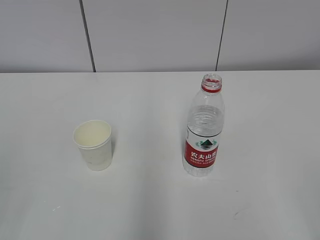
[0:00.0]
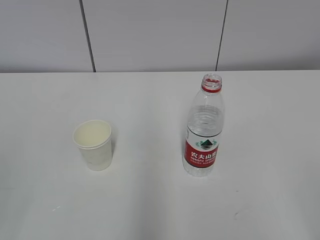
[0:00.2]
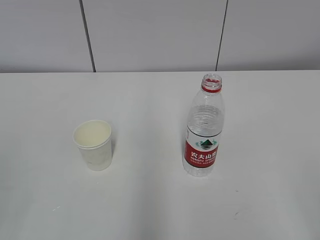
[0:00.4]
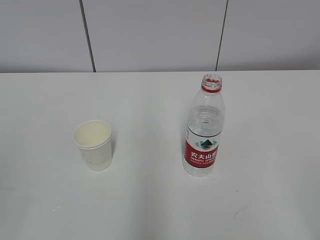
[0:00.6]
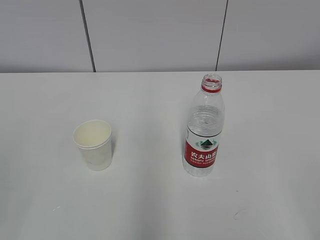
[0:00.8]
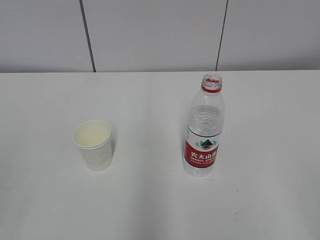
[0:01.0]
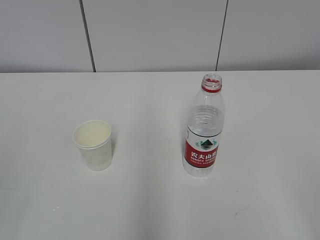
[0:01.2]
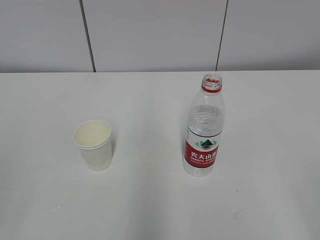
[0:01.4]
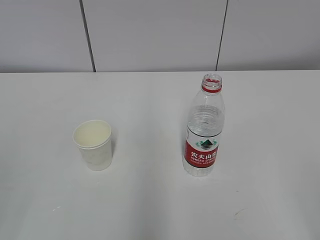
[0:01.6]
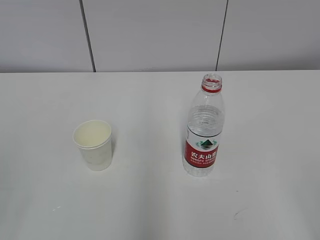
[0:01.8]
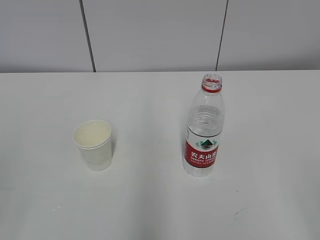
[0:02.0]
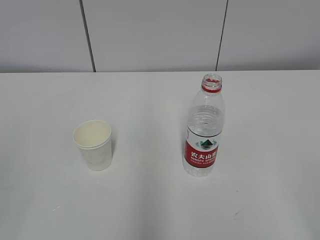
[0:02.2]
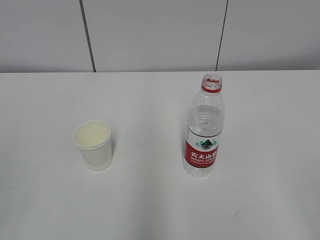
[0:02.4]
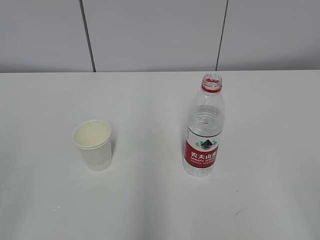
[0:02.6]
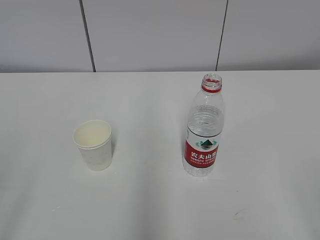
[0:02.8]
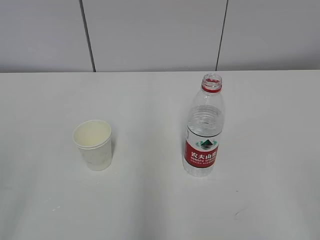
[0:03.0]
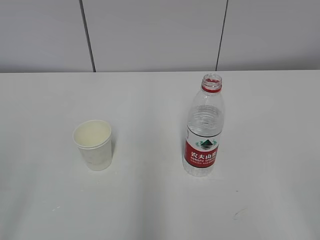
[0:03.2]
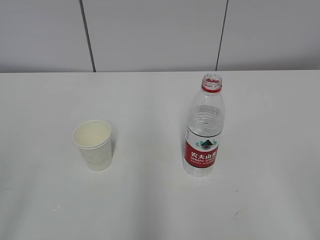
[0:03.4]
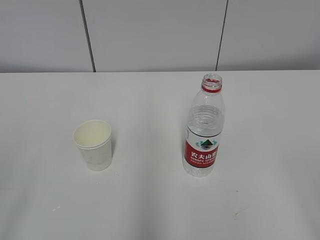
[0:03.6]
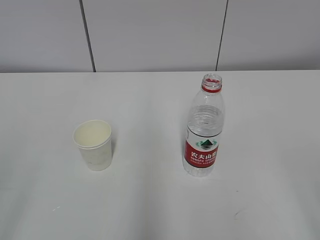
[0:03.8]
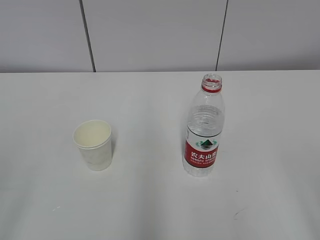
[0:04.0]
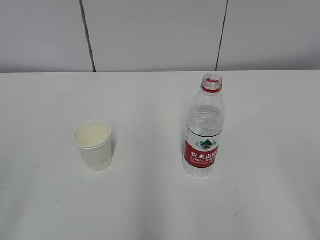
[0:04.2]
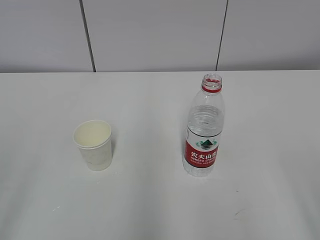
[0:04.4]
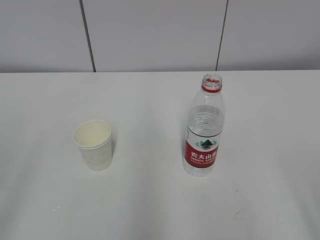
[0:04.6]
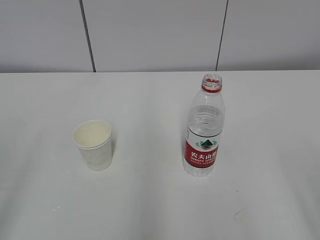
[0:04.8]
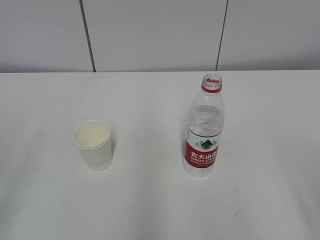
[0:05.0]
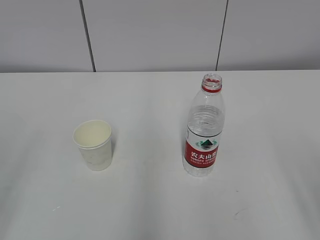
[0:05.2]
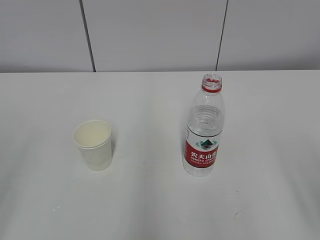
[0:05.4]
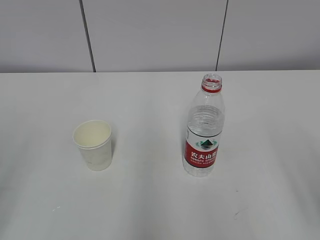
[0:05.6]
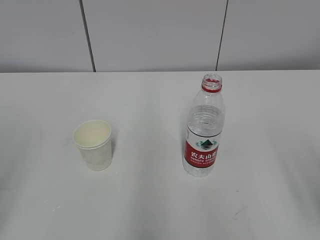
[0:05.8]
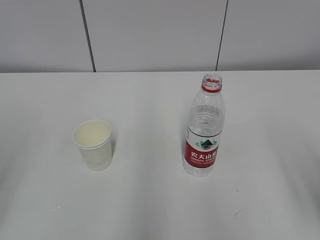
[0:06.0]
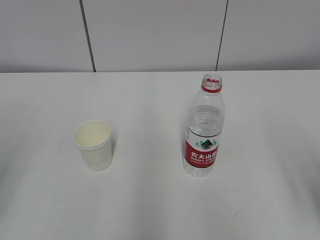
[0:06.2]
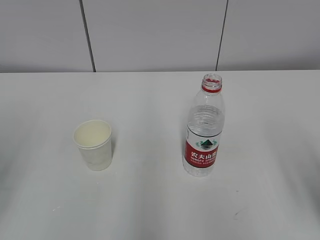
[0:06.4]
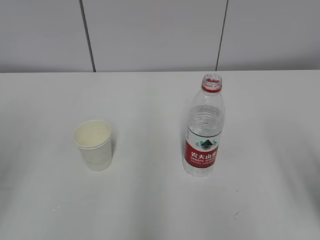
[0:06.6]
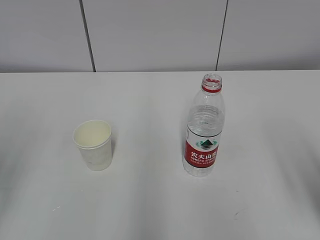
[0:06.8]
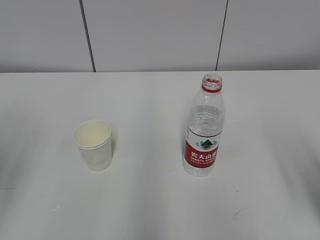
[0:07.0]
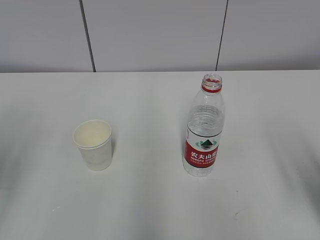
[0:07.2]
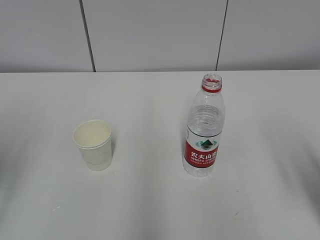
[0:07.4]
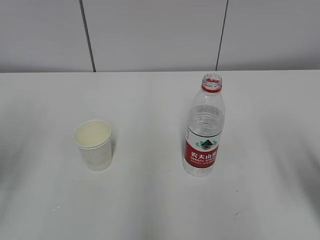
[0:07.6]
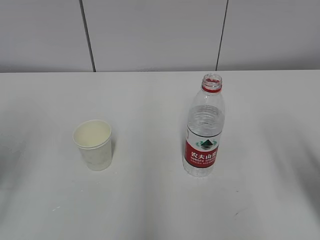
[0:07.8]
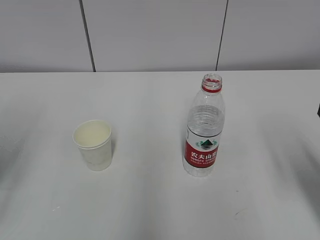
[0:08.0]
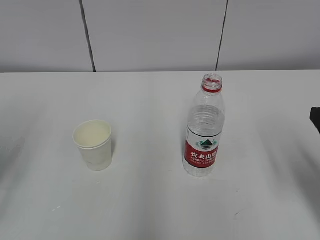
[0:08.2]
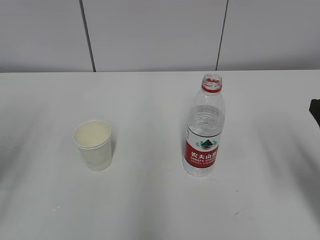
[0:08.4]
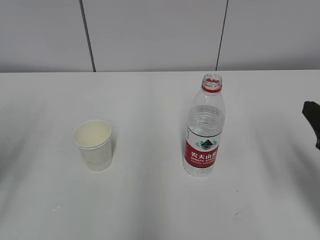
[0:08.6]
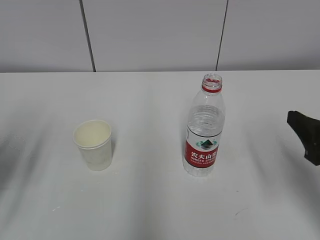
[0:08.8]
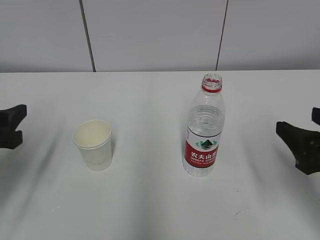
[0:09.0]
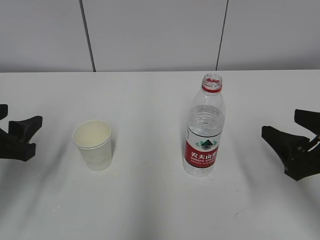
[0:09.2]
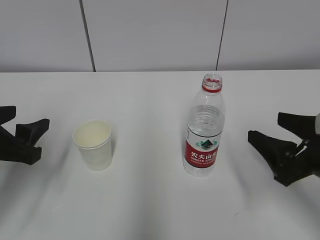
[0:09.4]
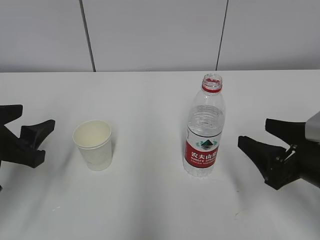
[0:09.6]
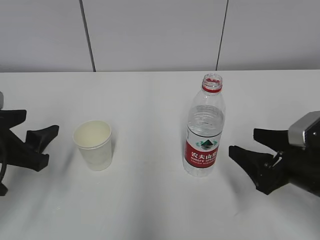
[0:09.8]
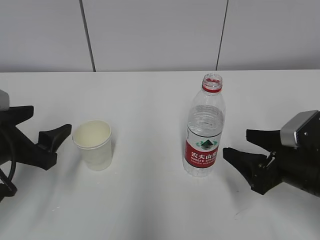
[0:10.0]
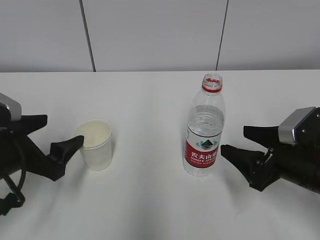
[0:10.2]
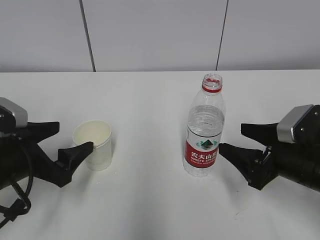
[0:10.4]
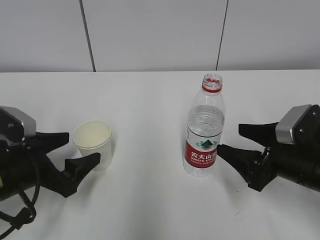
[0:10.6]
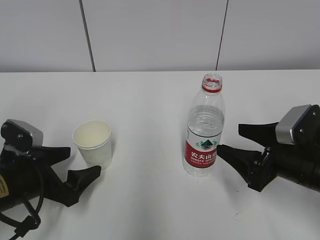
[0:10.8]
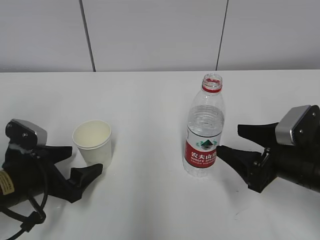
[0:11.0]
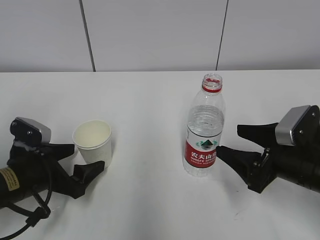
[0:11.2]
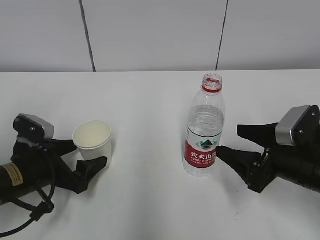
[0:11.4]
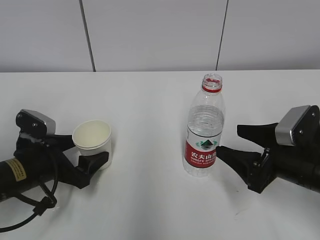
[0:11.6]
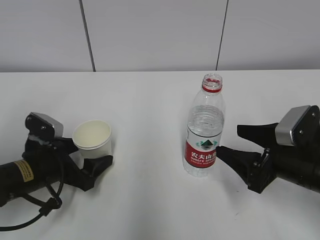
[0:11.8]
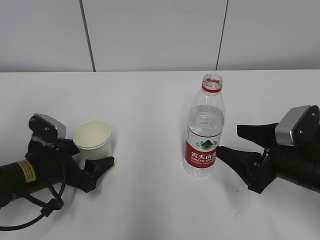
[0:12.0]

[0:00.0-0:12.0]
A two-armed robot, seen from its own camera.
Step, 0:00.0 to 0:12.0: Grab the paper cup with the left hand.
0:07.6 to 0:09.0: The left gripper shifts about 5 cm downward; the right gripper changes place by about 5 cm.
0:09.0 to 0:10.4: The right gripper heads downward and forward, covering about 10 cm, while the left gripper moves downward, some 5 cm, and opens up.
0:10.4 to 0:12.0: The left gripper moves downward, about 5 cm.

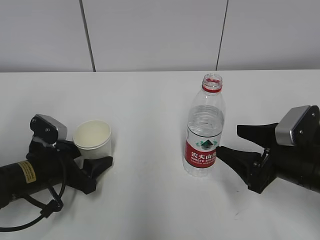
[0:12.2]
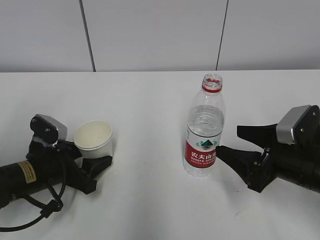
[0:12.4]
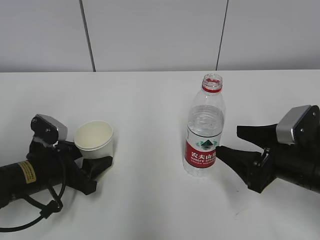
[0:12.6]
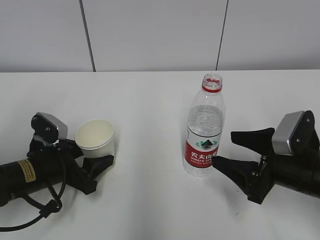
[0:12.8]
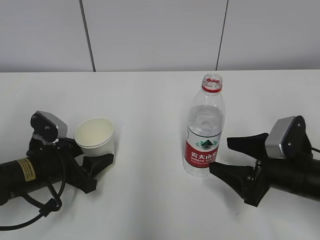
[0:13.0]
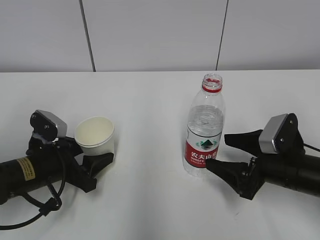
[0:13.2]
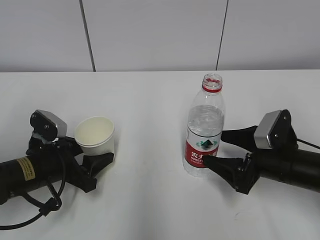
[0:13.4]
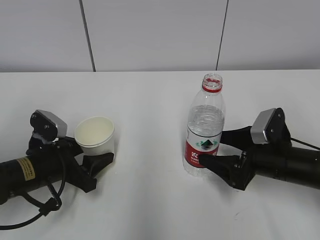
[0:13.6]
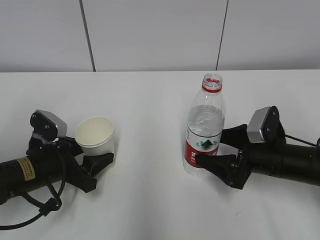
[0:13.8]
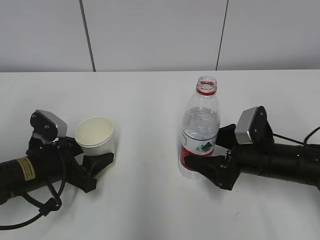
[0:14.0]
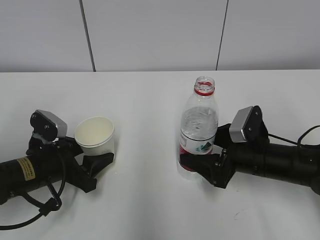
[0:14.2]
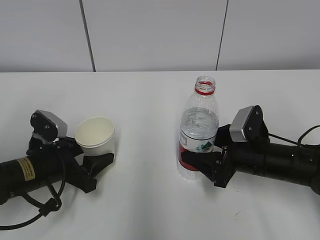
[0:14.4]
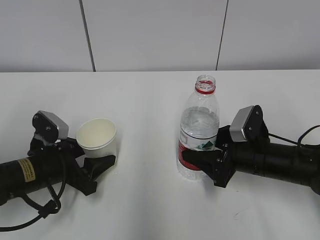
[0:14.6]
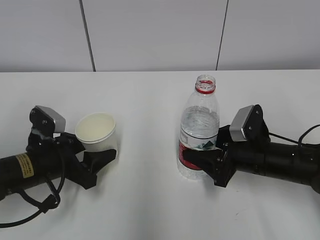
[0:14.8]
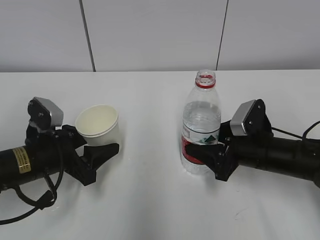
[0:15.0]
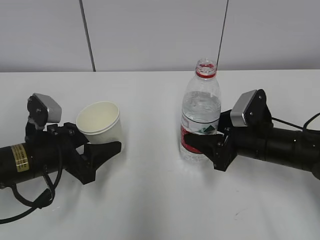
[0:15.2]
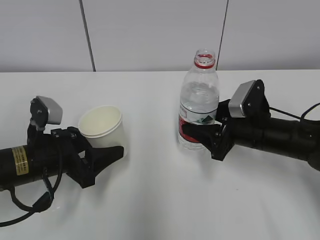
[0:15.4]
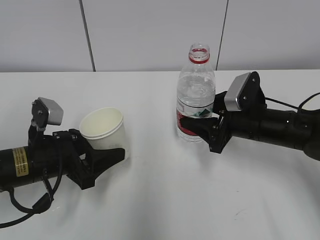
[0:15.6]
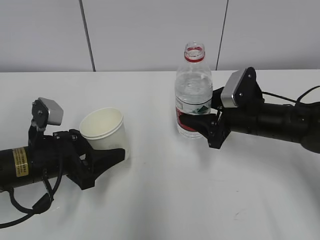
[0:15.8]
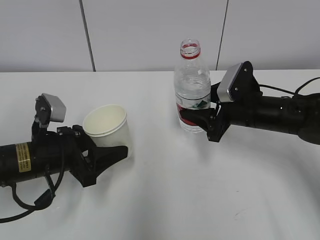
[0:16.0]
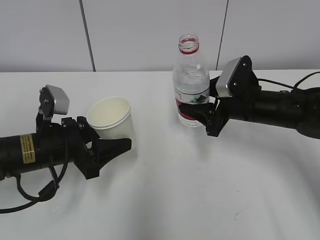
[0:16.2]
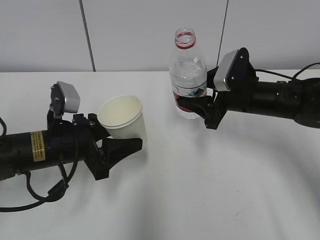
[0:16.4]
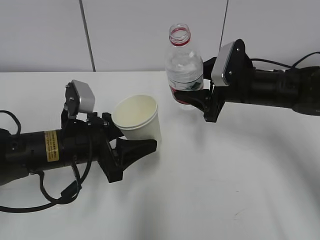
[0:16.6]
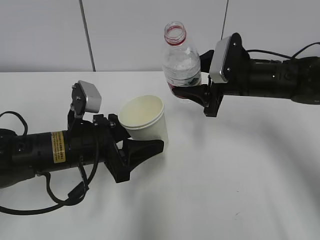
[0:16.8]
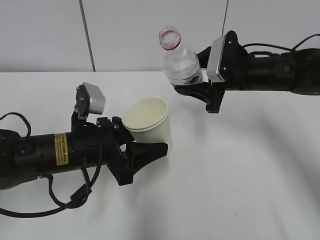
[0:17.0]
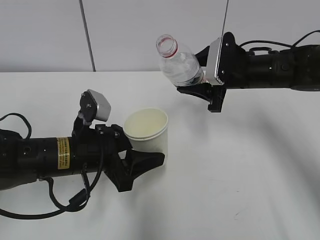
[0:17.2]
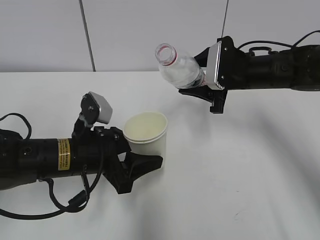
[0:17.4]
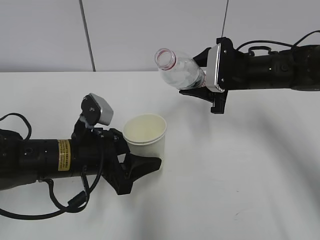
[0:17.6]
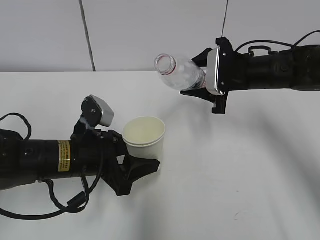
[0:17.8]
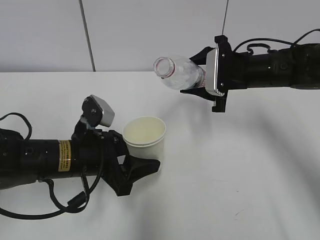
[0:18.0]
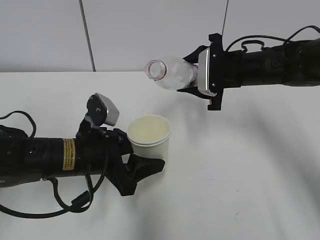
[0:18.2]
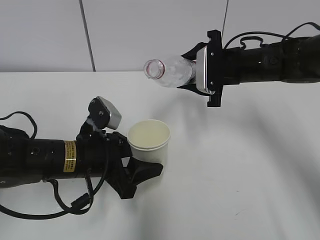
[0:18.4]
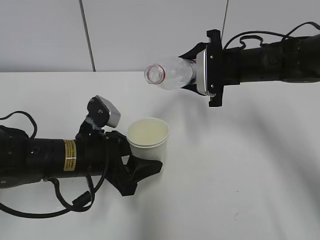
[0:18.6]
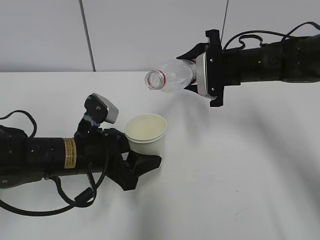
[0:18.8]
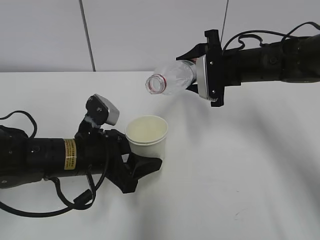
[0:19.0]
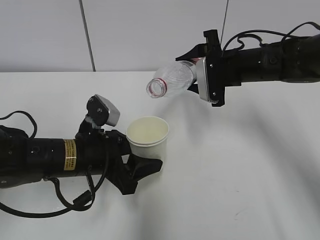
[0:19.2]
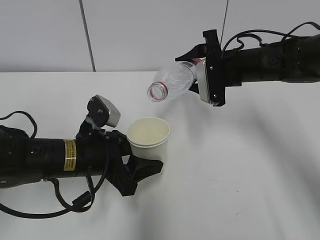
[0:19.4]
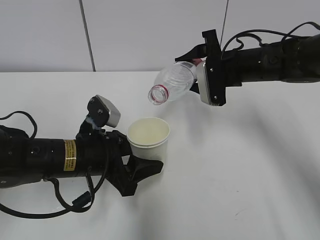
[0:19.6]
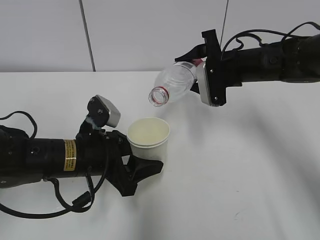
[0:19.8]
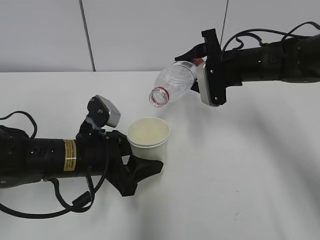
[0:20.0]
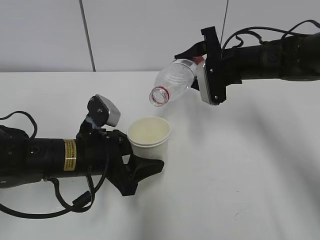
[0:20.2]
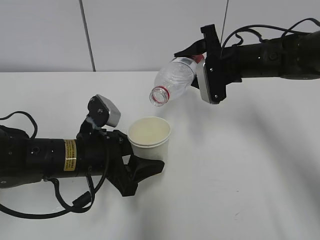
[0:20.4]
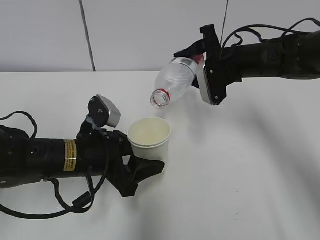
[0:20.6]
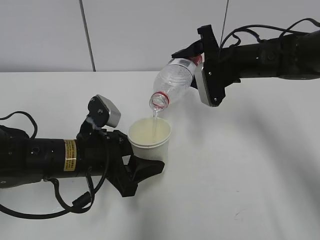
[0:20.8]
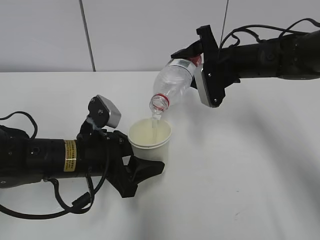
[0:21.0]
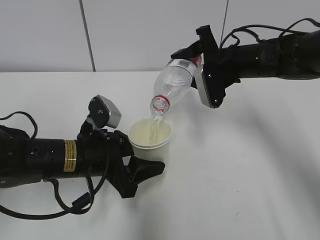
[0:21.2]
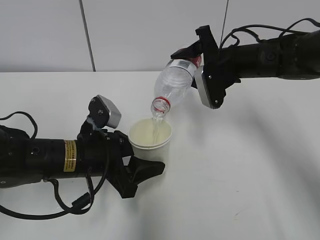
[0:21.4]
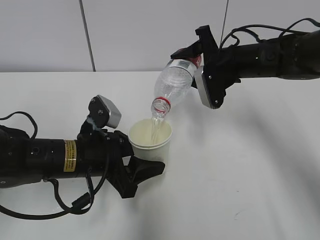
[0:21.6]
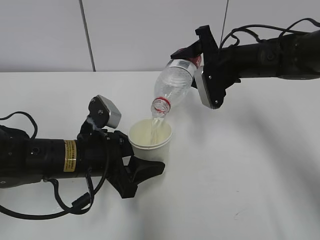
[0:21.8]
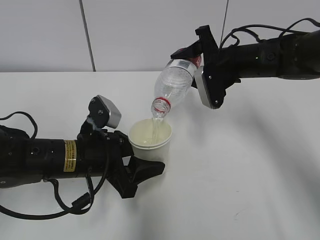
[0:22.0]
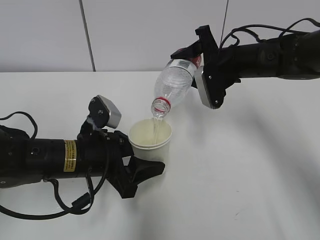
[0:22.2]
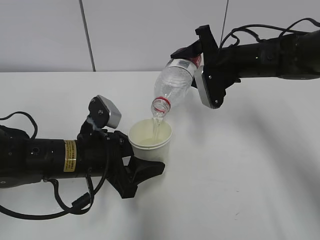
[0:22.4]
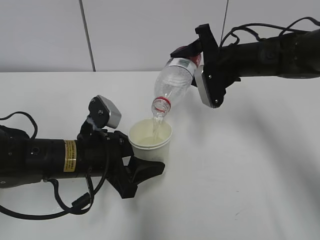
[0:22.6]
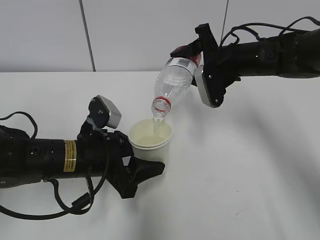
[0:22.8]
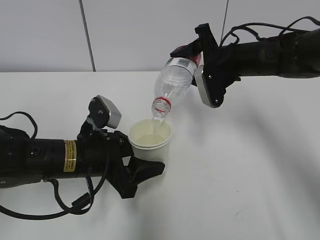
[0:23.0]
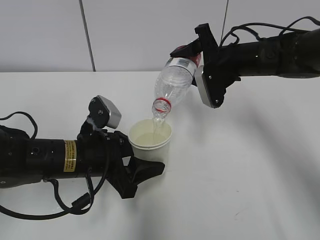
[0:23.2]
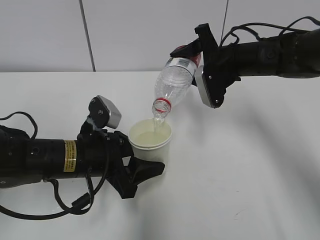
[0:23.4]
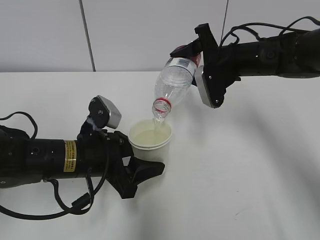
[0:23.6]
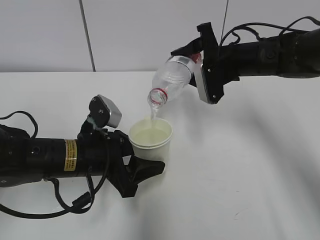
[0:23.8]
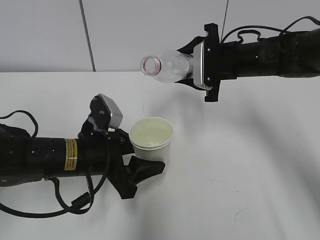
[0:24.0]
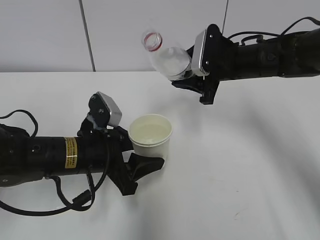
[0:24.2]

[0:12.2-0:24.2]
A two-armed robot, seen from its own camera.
Step, 0:12.4 to 0:17.0: Lift the paper cup with the left hand.
Step, 0:17.2 to 0:20.0: Fill water with the left hand.
Step, 0:17.2 to 0:20.0: Pour water with the right hand.
Step, 0:20.2 to 0:21.0: Collect water with the right hand.
0:12.2 to 0:13.8: The right gripper changes place by about 5 cm, and opens its fingers.
0:13.8 to 0:15.2: The right gripper closes.
0:15.2 to 0:16.6: The left gripper travels to the right by some 5 cm. Meanwhile the right gripper shifts approximately 10 cm forward and upward.
0:19.8 to 0:21.2: The grippers move only a little.
0:21.2 to 0:22.6: Neither gripper changes place.
